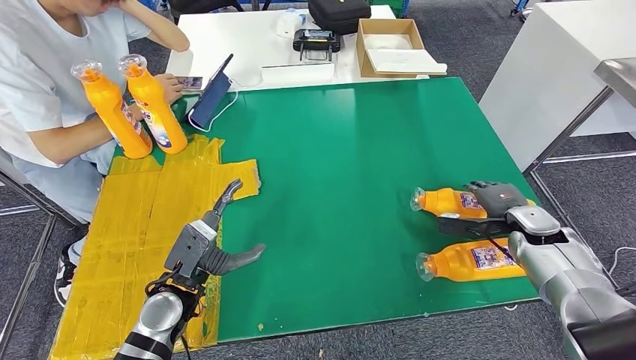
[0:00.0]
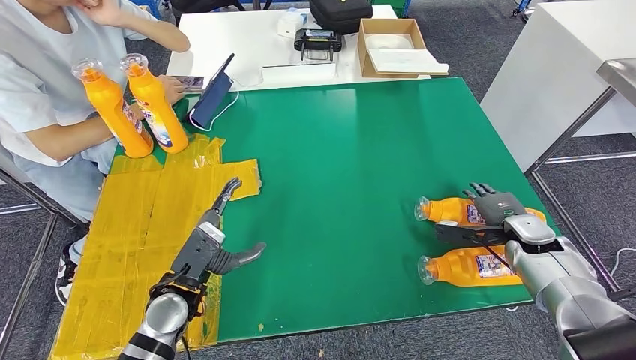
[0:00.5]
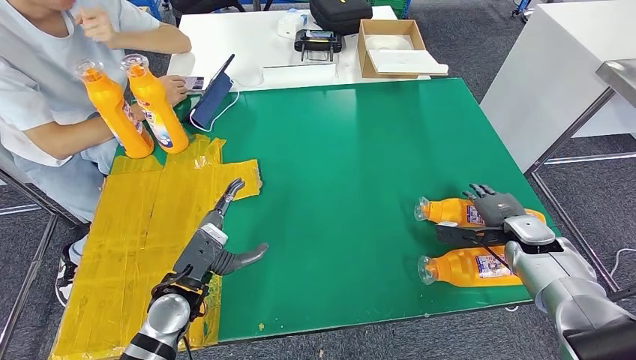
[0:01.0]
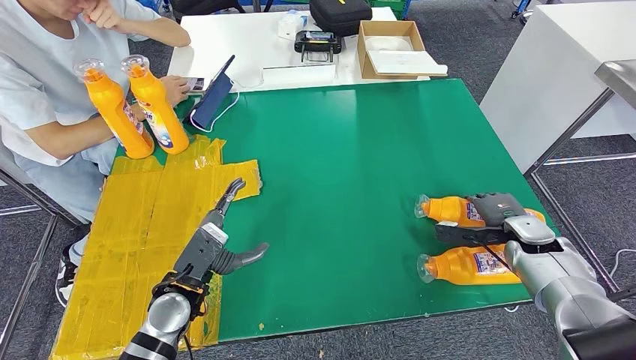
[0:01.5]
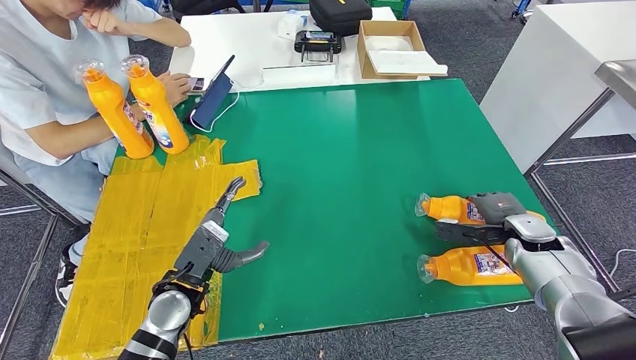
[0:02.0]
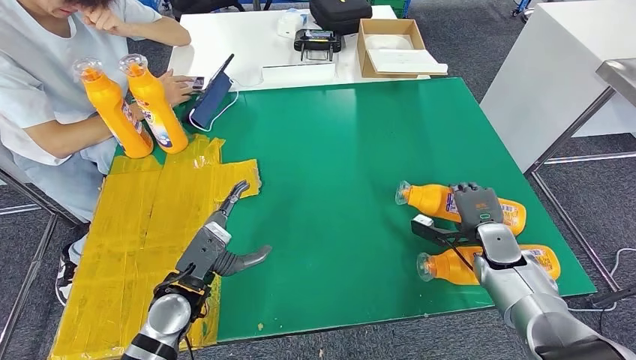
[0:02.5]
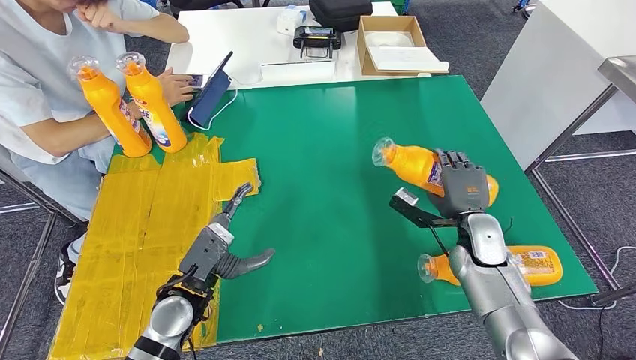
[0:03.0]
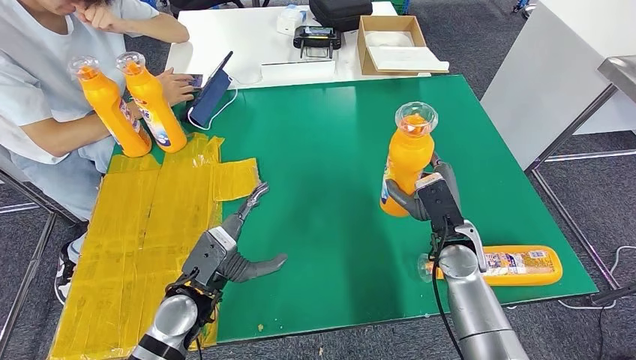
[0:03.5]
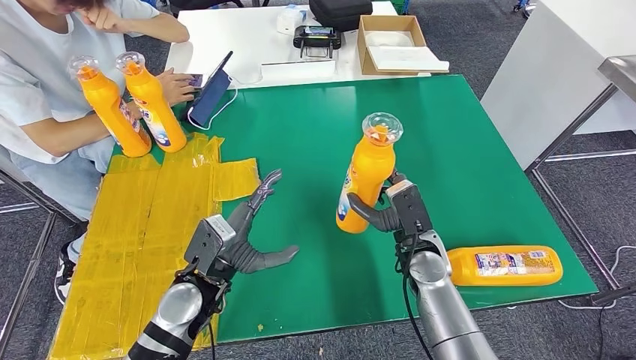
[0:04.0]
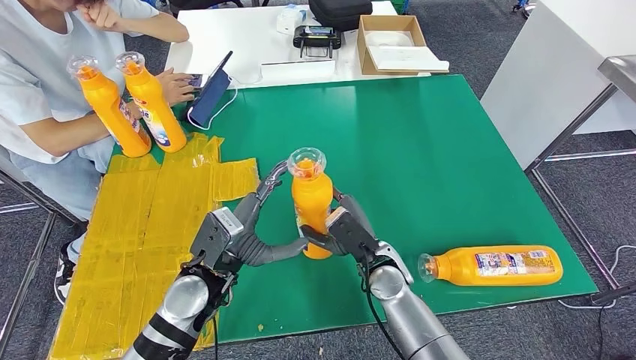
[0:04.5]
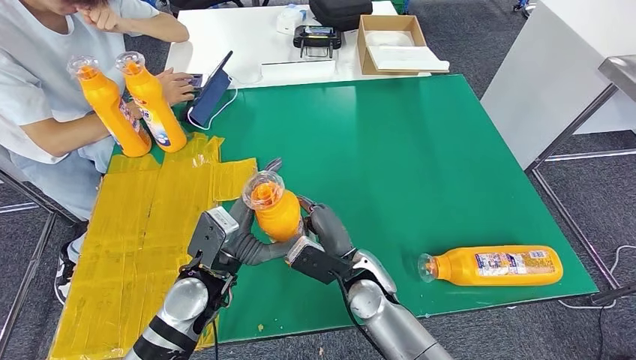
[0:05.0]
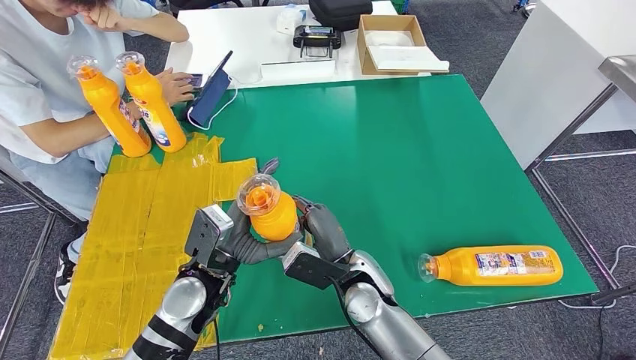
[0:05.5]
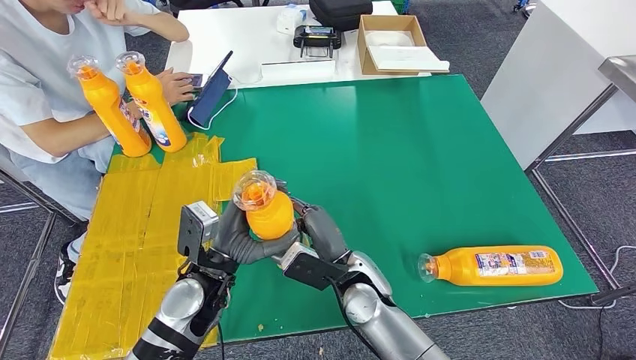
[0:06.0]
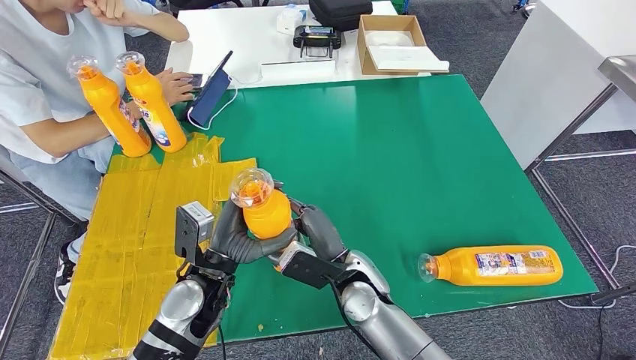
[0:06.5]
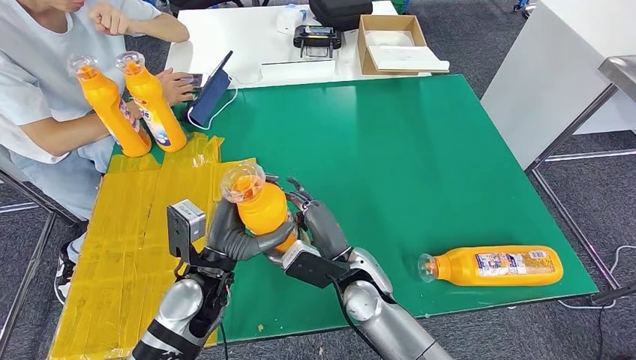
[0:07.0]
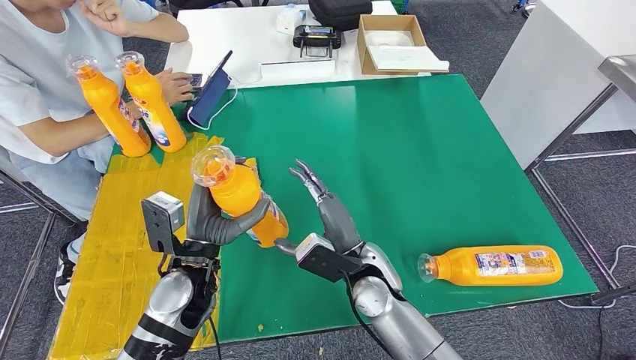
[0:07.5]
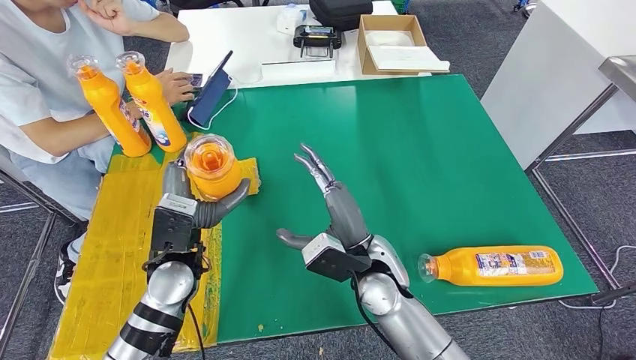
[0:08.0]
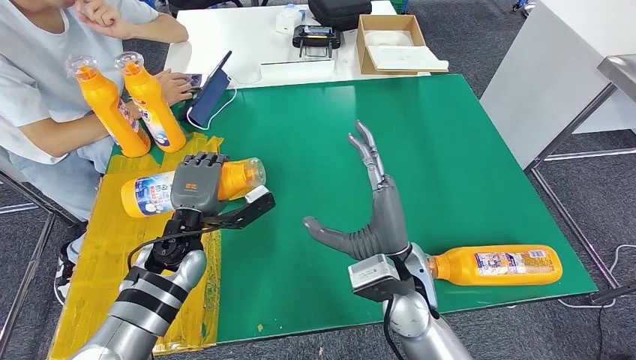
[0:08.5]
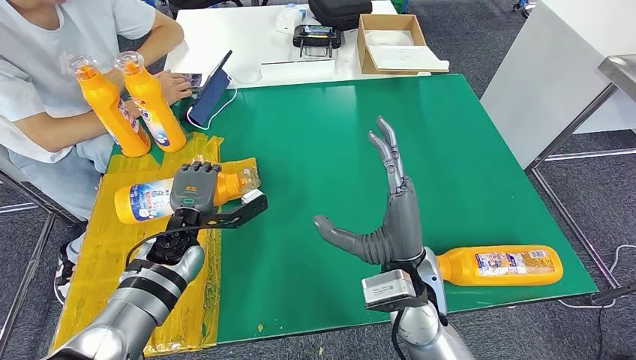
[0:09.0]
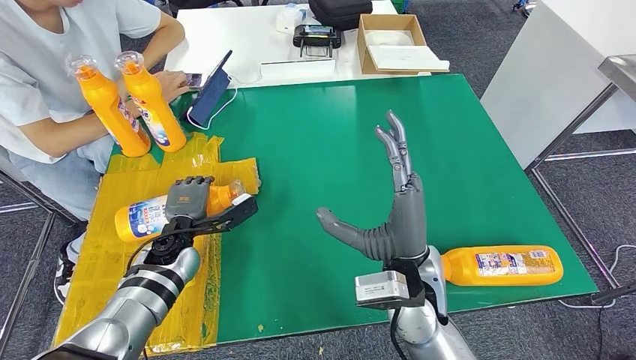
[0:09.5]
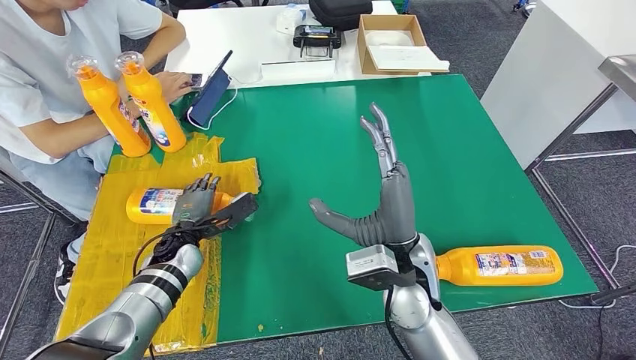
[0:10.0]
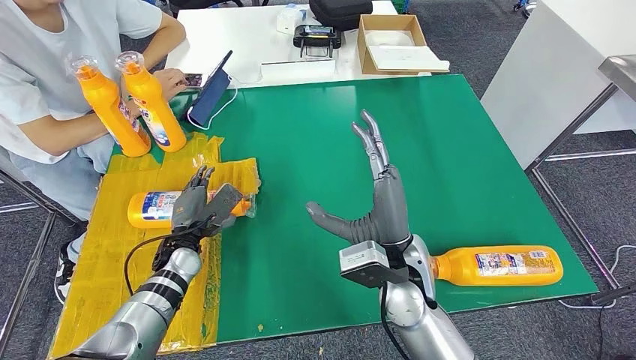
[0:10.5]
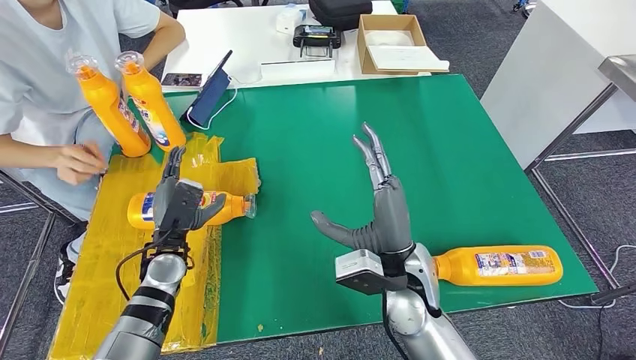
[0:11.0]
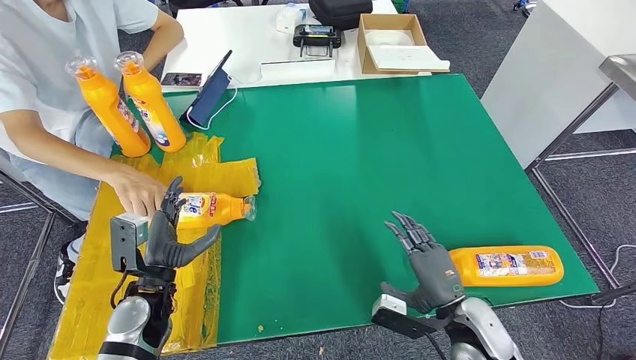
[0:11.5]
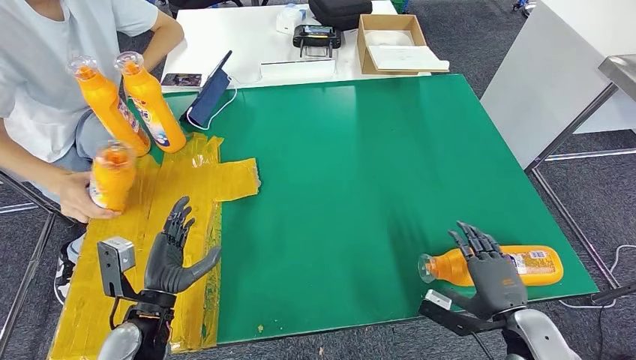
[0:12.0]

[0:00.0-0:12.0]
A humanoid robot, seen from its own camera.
Step, 0:00.0 to 0:03.0: Pick up the bottle from the table.
Step, 0:04.0 to 0:10.5: Flip the bottle to face forward.
0:00.0 to 0:02.0: The hands make only small movements.
0:04.0 to 0:06.0: The right hand moves to the left, about 10 cm.
0:06.0 to 0:08.0: The left hand changes place by about 5 cm.
0:08.0 to 0:10.0: The right hand heads upward, covering approximately 5 cm, while the left hand travels downward, forward and to the left by approximately 15 cm.
0:10.0 to 0:12.0: The right hand goes approximately 25 cm to the right and downward; the left hand moves backward, some 15 cm.

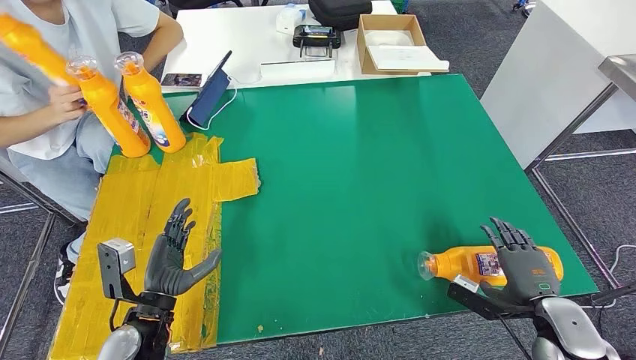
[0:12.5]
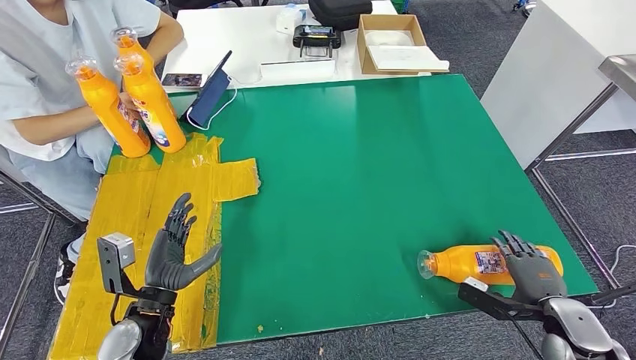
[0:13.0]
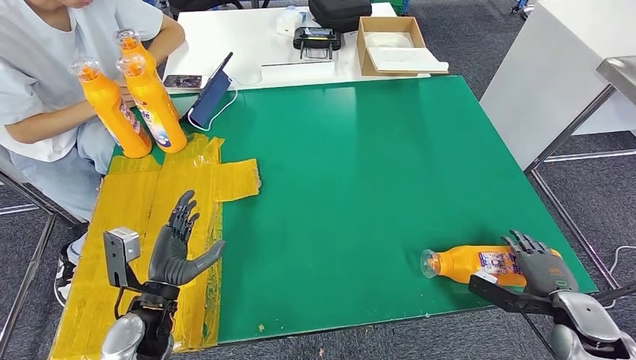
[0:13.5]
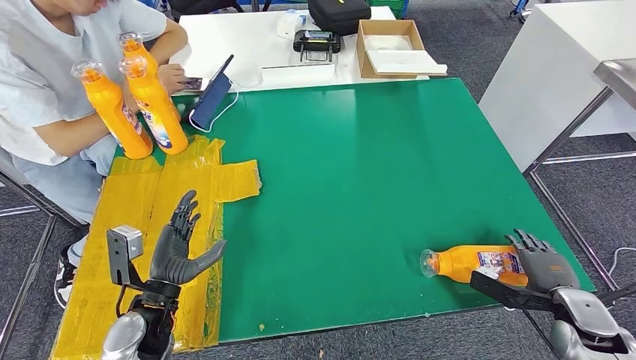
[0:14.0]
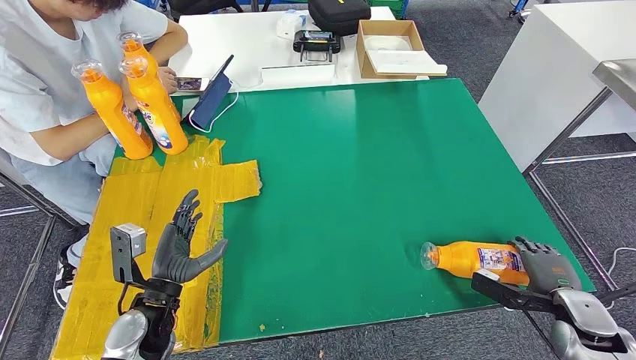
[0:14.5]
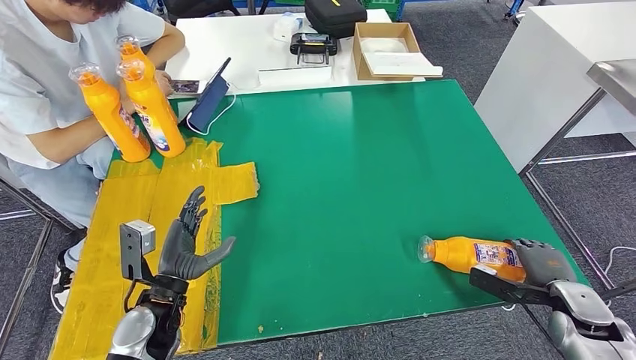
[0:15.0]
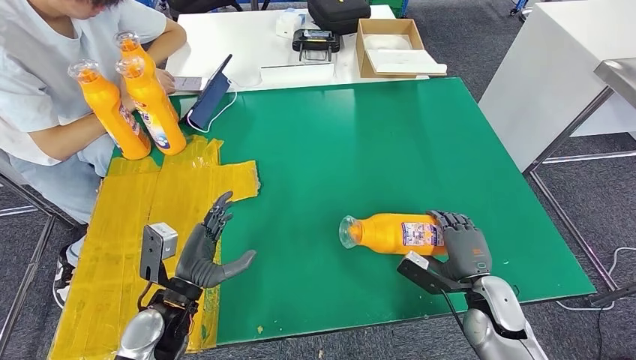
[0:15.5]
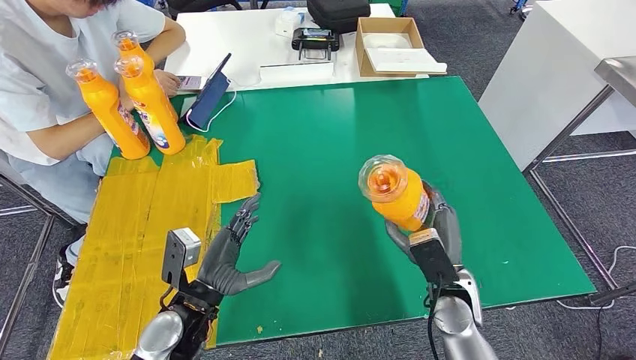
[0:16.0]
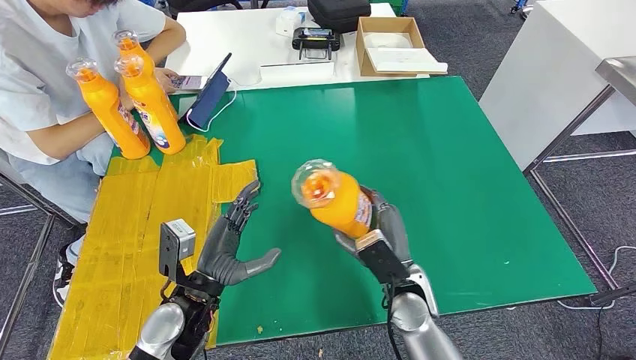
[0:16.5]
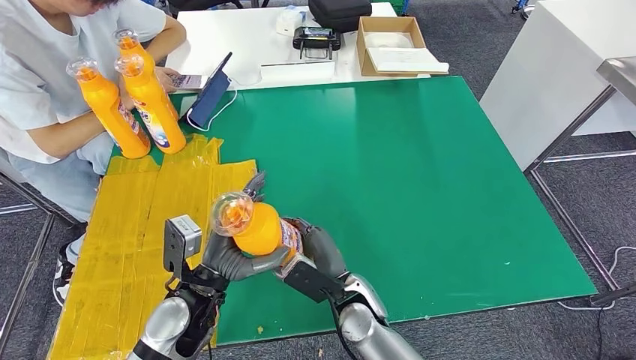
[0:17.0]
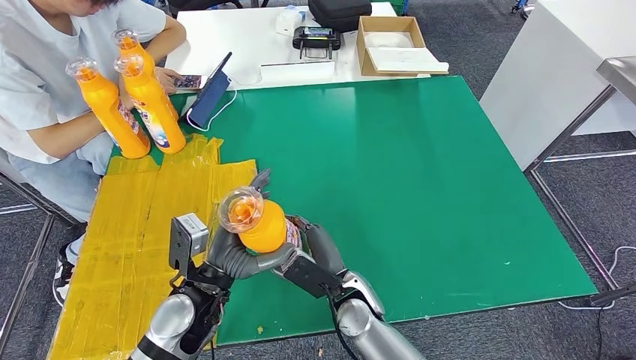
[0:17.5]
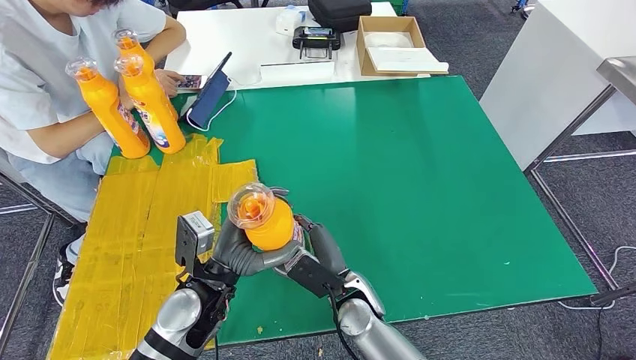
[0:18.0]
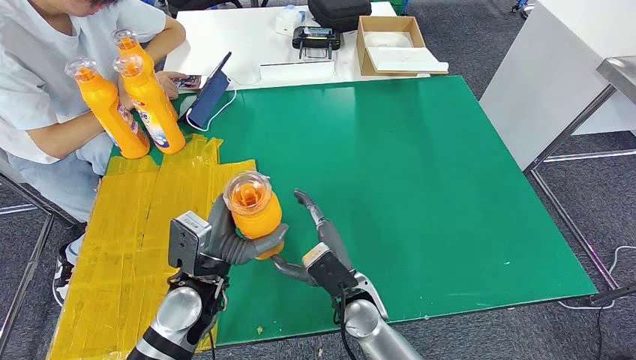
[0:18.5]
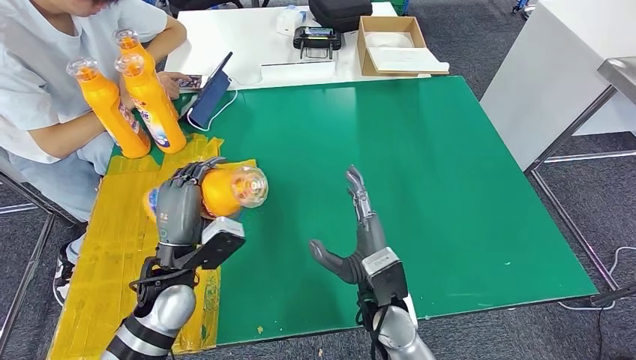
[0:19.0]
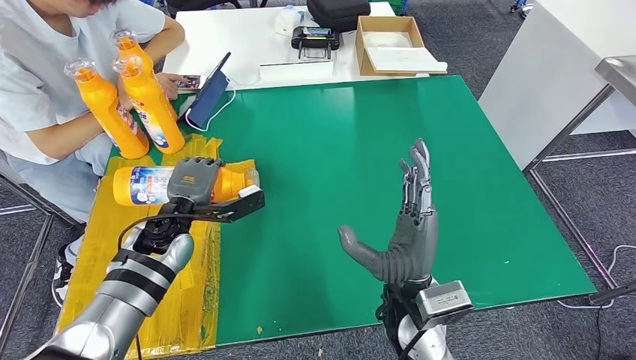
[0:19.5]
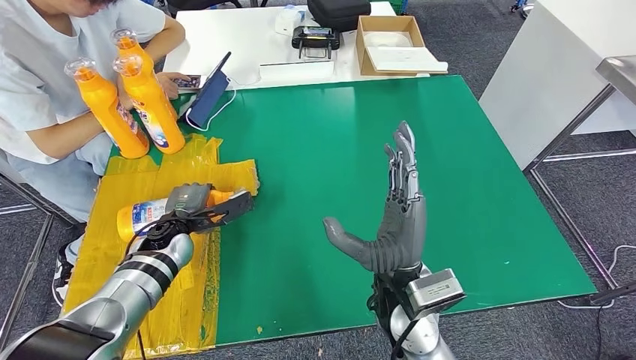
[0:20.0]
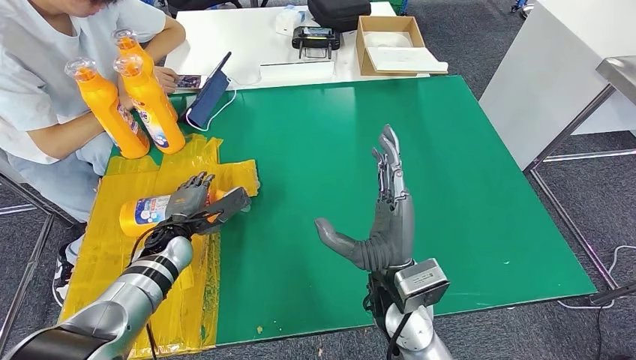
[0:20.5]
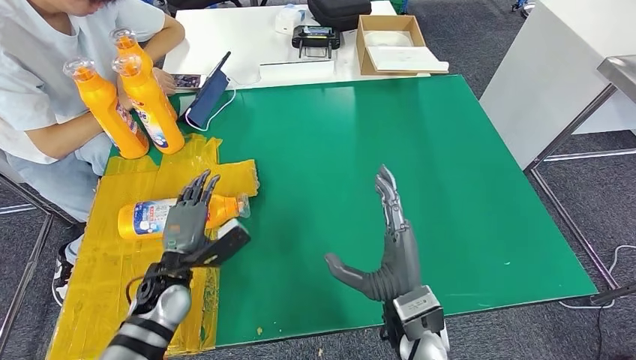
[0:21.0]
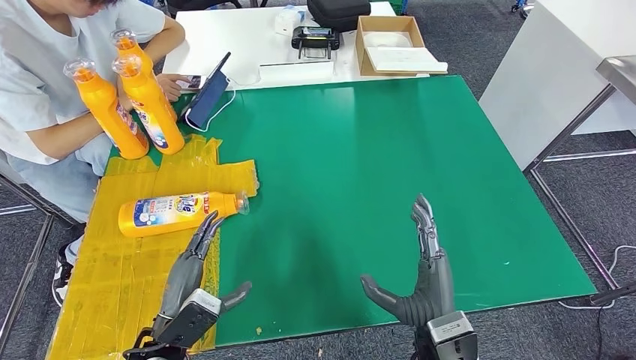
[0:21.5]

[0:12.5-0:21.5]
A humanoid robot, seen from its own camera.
Step, 0:12.5 to 0:16.0: Pick up the bottle from the table.
Step, 0:16.5 to 0:21.5: Flip the bottle to face forward.
0:17.0 to 0:19.5: The right hand travels upward and to the right by about 10 cm. The left hand goes approximately 15 cm forward and to the left.
0:19.5 to 0:21.5: The right hand shifts some 10 cm downward, to the right and backward. The left hand goes approximately 20 cm backward.
